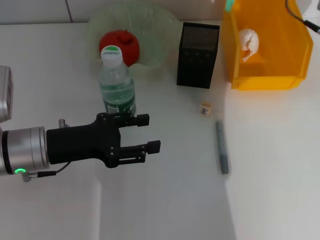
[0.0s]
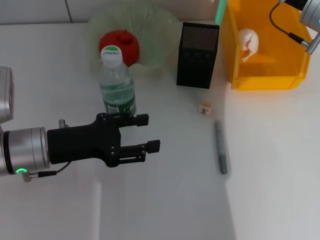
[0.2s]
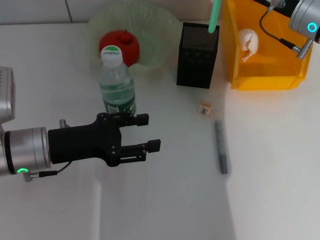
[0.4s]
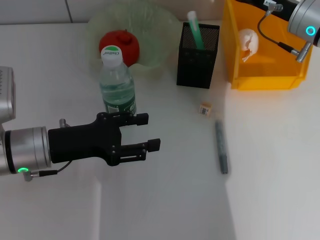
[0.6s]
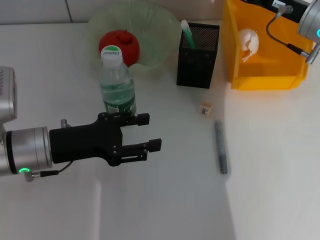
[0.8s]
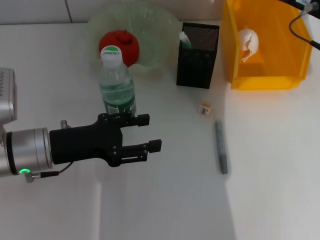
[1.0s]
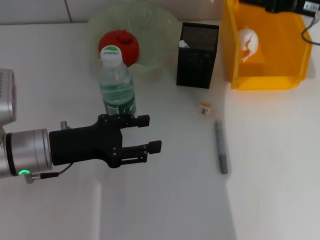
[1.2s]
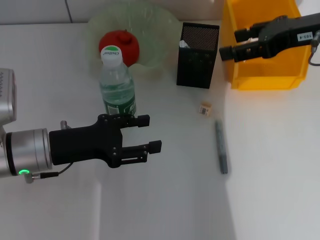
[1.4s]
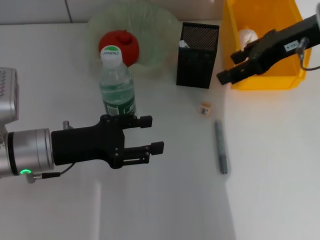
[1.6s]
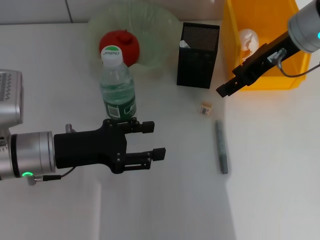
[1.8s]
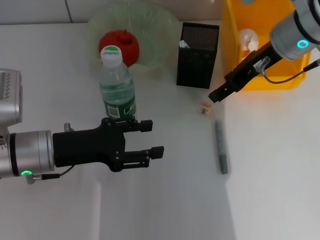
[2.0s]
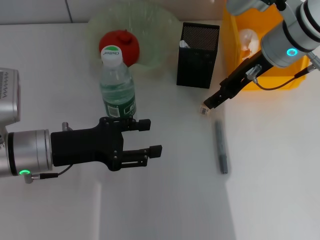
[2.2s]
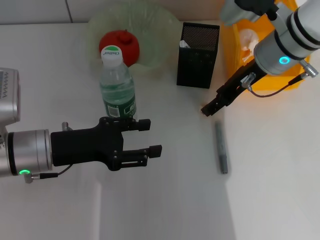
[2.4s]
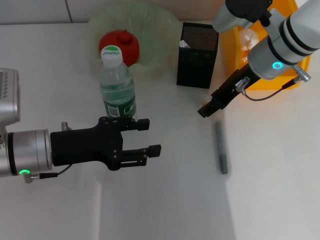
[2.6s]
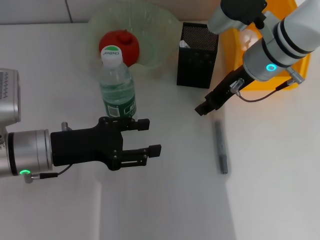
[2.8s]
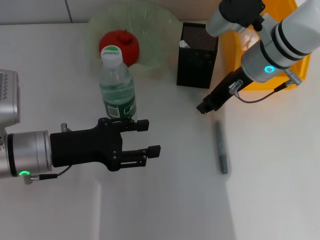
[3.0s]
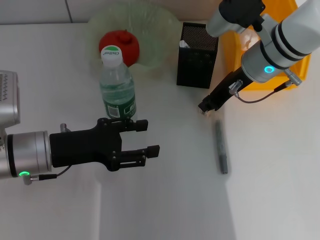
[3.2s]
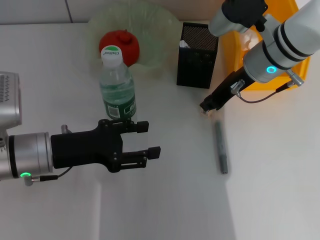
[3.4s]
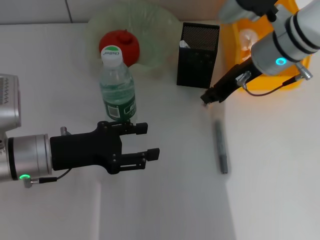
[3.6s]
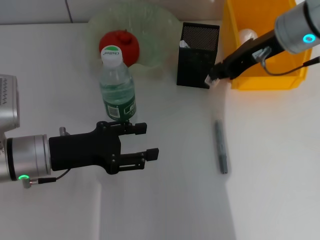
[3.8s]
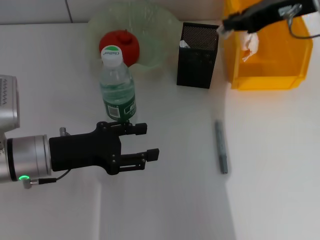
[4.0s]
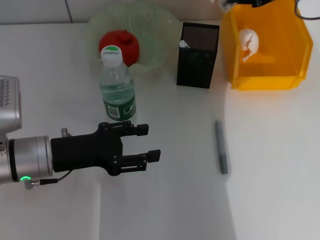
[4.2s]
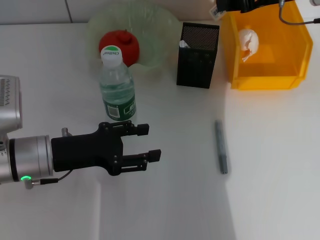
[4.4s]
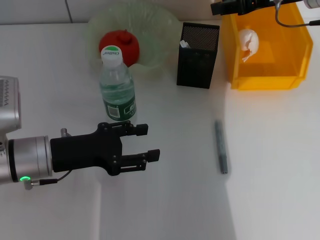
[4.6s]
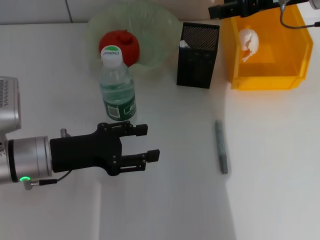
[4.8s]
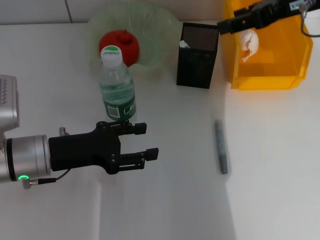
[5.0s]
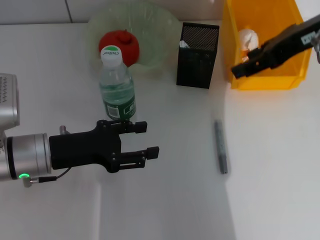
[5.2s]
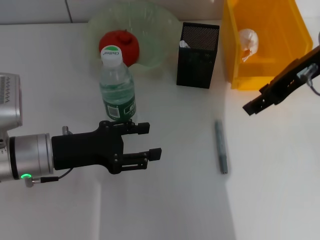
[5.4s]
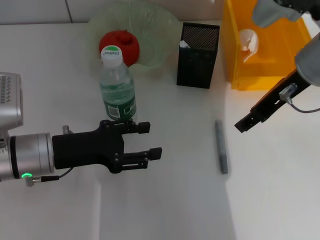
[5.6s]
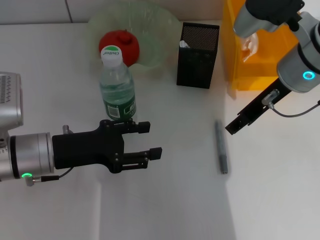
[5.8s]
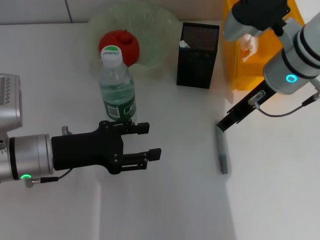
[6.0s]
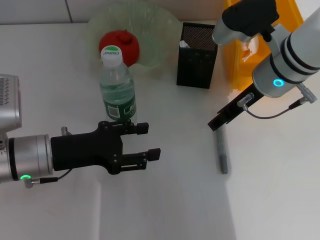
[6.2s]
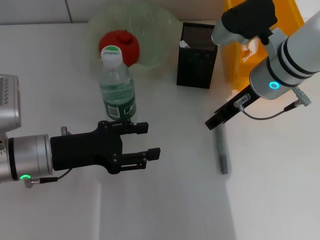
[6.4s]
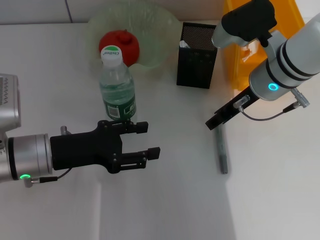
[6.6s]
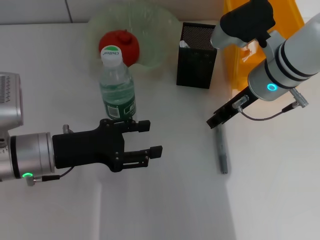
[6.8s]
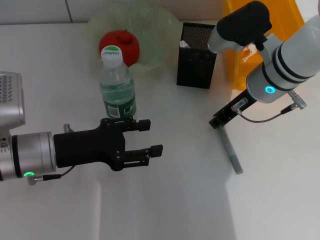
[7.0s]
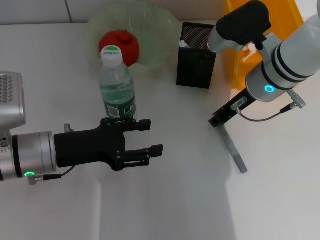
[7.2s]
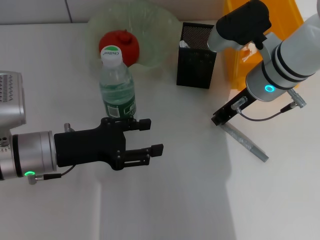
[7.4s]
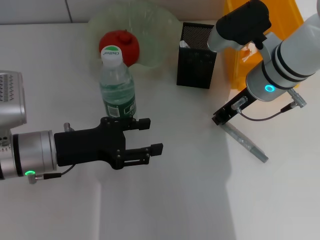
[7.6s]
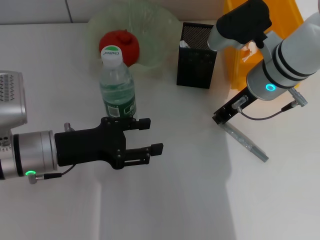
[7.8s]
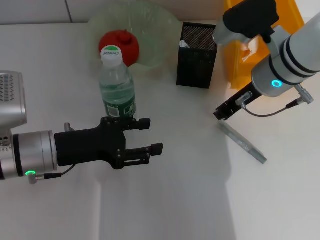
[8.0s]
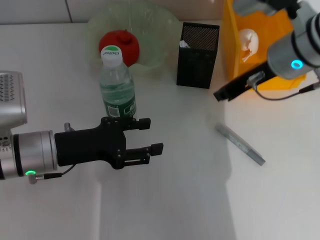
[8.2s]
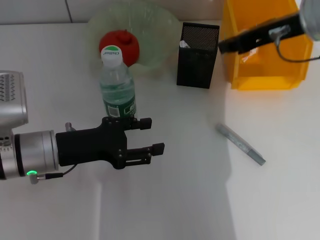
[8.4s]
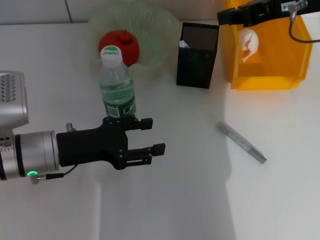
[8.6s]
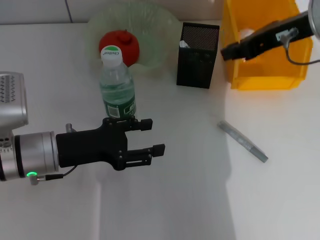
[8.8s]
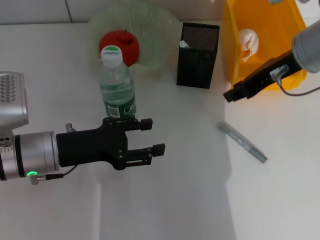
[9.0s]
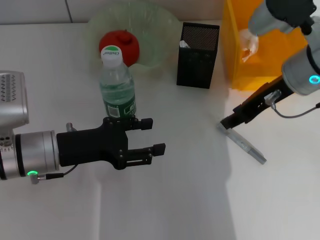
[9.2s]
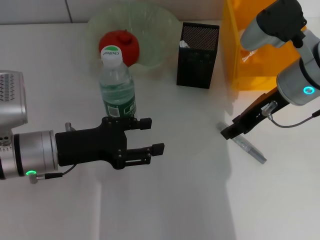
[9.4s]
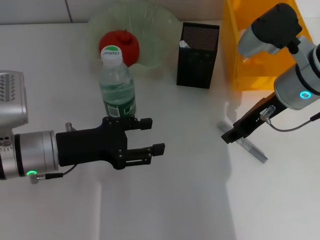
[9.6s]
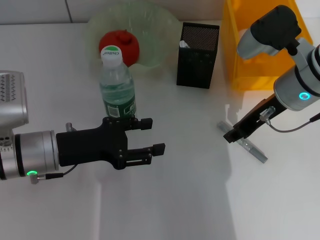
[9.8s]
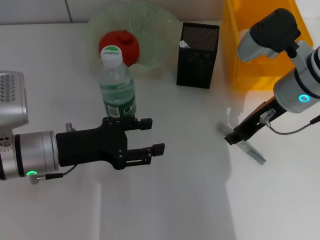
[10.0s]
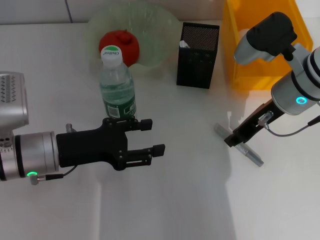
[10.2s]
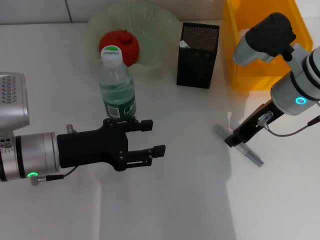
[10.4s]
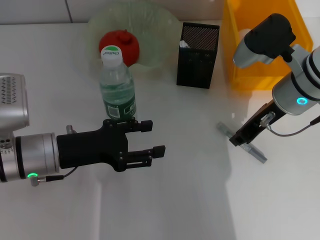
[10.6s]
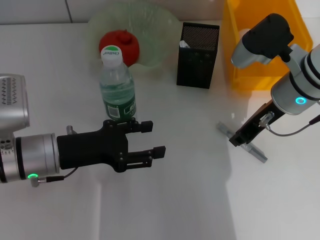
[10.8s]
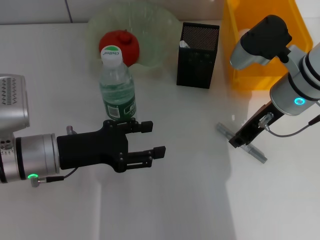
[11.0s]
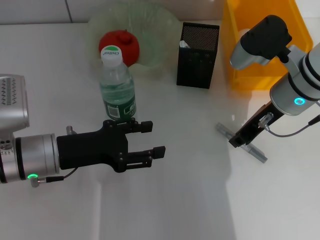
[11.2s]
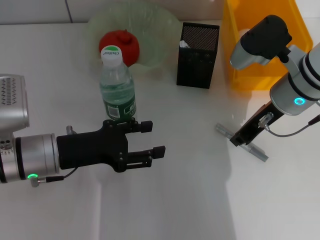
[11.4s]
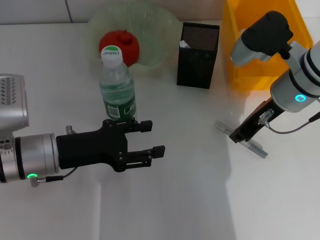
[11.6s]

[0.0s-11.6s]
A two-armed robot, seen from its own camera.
Step, 0.8s to 3.2s: Grab the eraser with the right hand.
Step, 3.4s to 5.0s: Put the eraser into the pen holder with the right hand.
Step, 5.2s to 11.2s: Grab the gray glue with the right hand.
0.0s to 1.4s: The right gripper shifts by roughly 5 cm, and opens its fingers.
1.4s to 2.8s: The right gripper heads to the left and downward, covering roughly 10 cm.
2.8s to 4.4s: The right gripper is displaced upward and to the right by roughly 10 cm, and closes its fingers.
4.4s to 5.8s: The right gripper is displaced backward and to the left by approximately 10 cm, and opens up.
5.8s to 7.2s: The right gripper is displaced downward by roughly 5 cm, and closes.
7.2s to 8.8s: The right gripper heads upward and to the right, covering some 10 cm.
8.8s to 10.2s: The right gripper travels downward by some 10 cm.
10.2s to 11.6s: Both grippers stay put.

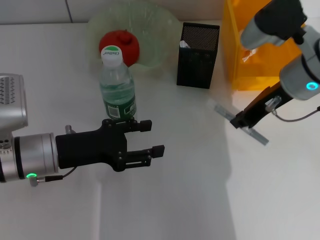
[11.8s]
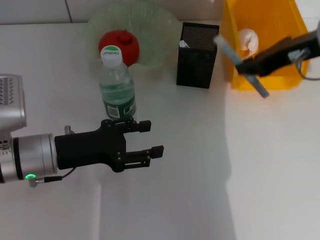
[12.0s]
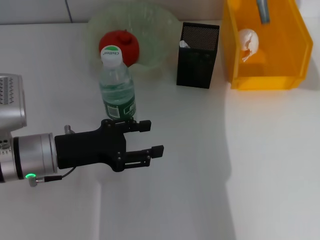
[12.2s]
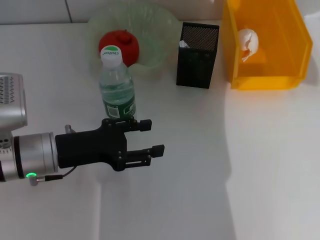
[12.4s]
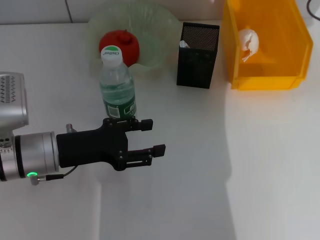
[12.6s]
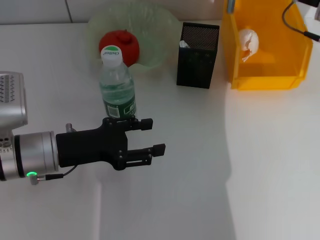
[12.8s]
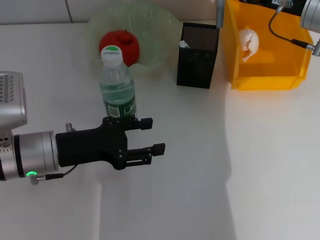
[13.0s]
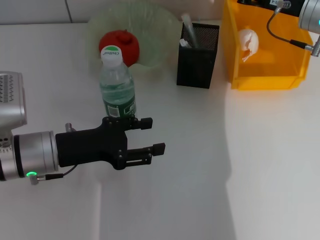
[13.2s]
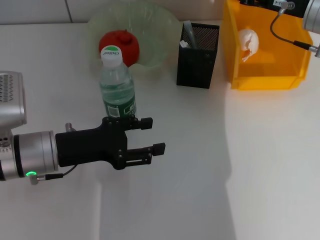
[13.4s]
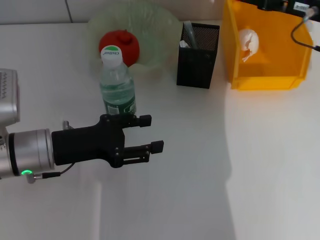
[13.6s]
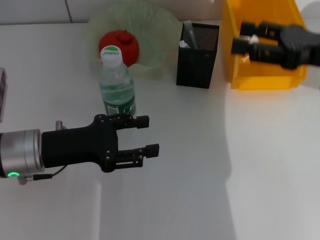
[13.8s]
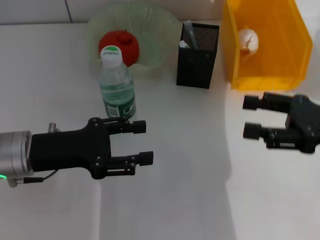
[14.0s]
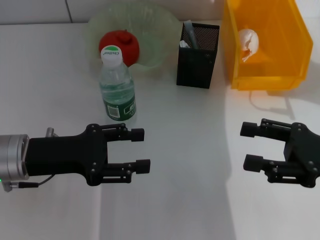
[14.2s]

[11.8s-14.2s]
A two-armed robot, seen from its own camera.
Step, 11.8s to 13.4s: Place the gray glue into the pen holder with the right hand.
11.8s to 13.0s: The right gripper heads forward and to the right, covering about 10 cm, and reaches roughly 10 cm upward, then returns.
13.0s to 14.2s: The right gripper travels backward by roughly 20 cm, and opens its fingers.

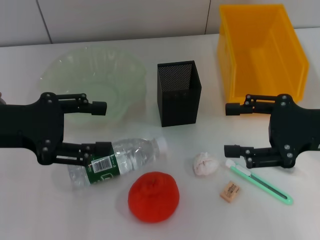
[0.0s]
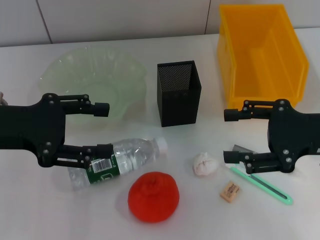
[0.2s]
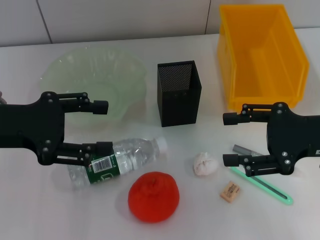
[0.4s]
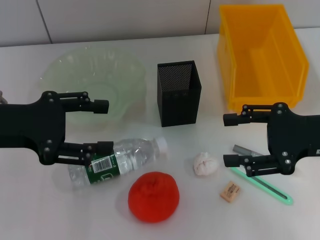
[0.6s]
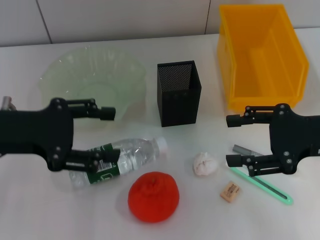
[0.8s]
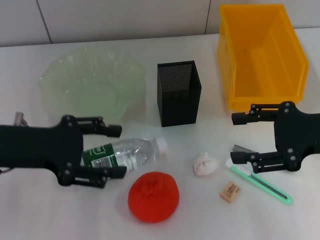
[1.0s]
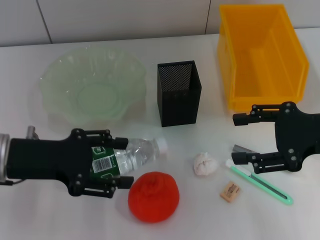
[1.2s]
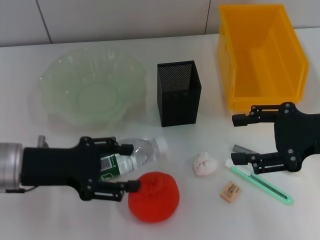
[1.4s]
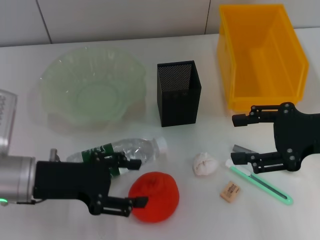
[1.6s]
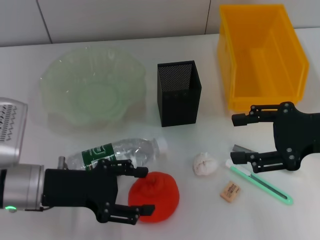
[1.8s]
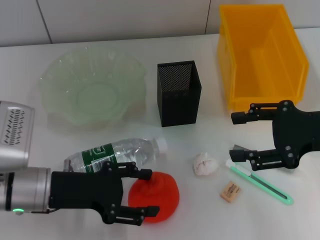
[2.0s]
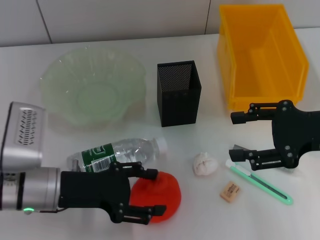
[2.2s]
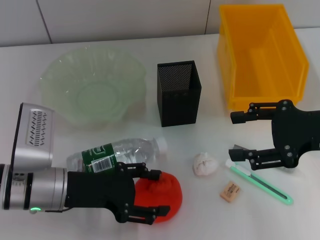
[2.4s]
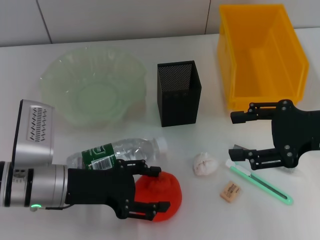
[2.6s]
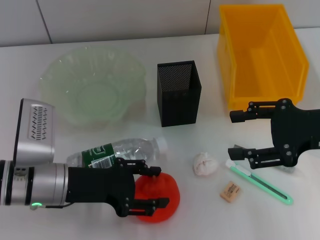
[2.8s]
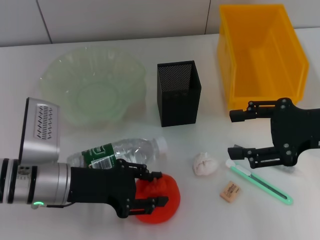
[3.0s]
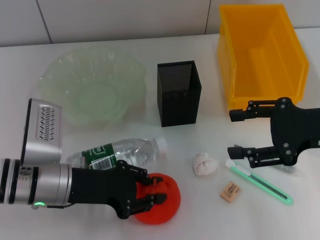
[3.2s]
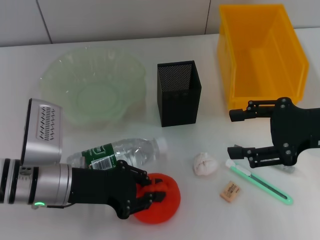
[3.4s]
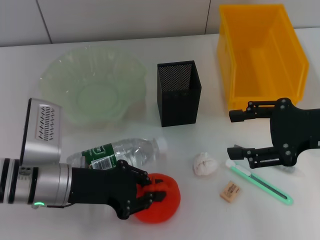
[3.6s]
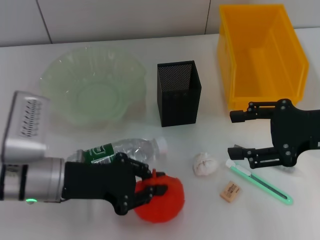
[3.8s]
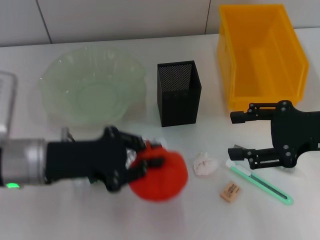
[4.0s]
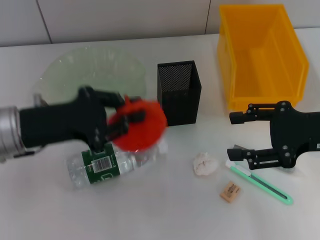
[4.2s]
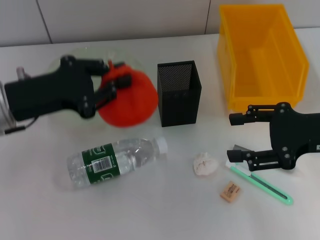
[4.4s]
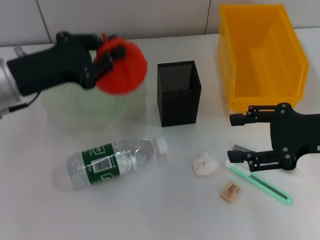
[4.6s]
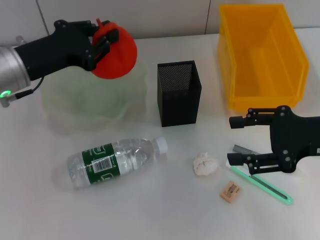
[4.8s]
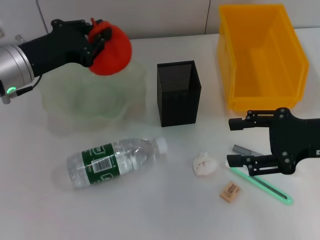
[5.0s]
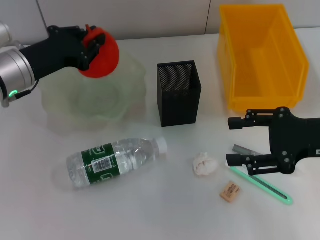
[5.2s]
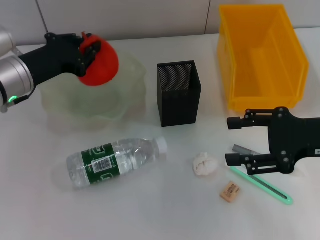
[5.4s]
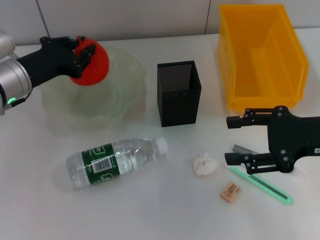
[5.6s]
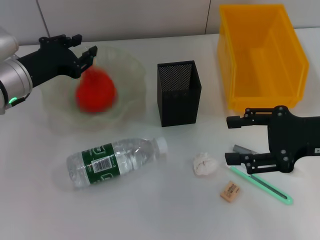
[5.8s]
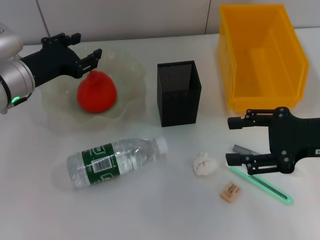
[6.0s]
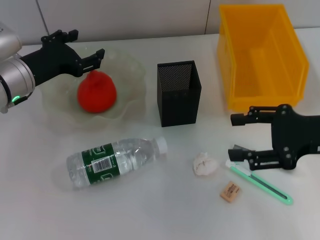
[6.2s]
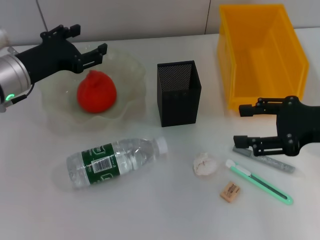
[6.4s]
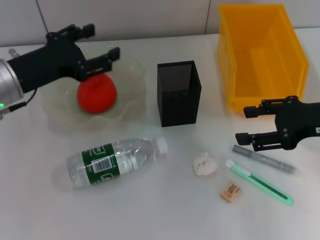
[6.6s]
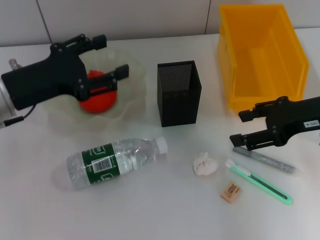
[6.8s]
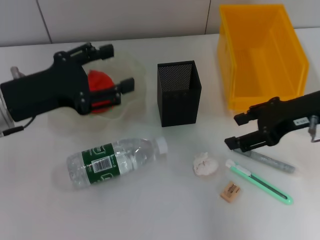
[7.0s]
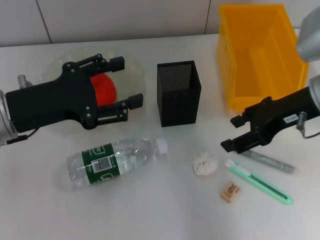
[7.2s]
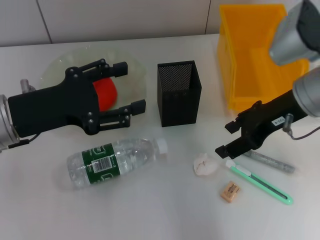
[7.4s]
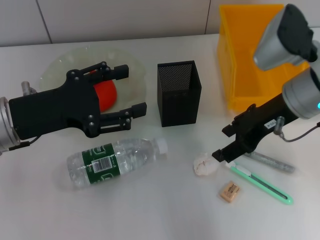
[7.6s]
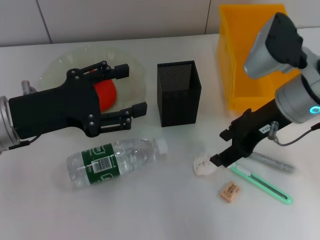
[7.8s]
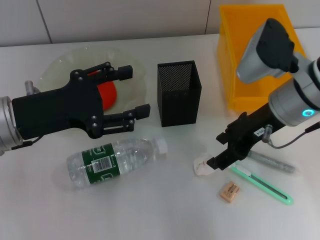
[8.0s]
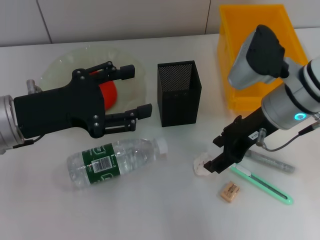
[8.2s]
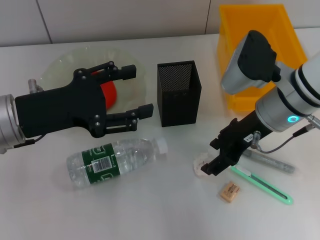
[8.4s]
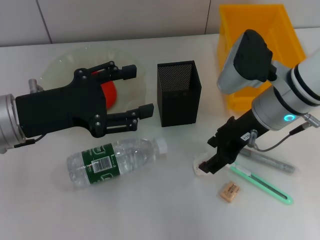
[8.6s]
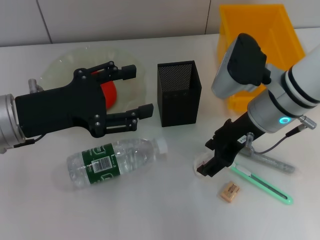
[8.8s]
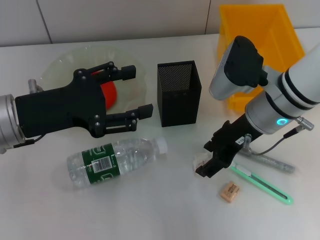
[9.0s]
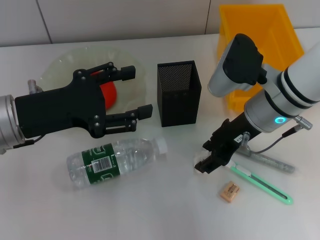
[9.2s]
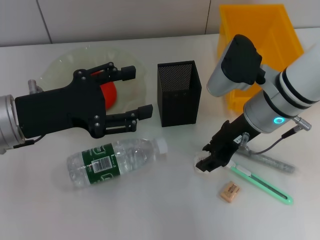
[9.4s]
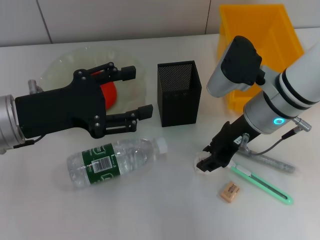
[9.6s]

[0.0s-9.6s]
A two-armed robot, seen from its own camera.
Step, 0.0s to 3.4s: Grab the orange with the left hand.
Step, 3.6s to 6.4s: Place the orange into the fruit bowl with the left hand.
0.0s to 1.6s: The left gripper heads downward, covering some 10 cm.
1.6s to 3.2s: The left gripper closes up.
3.2s to 4.8s: The left gripper moves upward and forward, roughly 10 cm, and closes.
4.8s to 6.4s: The left gripper opens.
6.4s to 8.0s: The right gripper shifts approximately 10 cm to the left and forward. The left gripper heads backward, covering approximately 10 cm.
8.0s to 9.6s: The right gripper closes.
